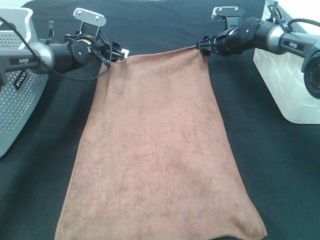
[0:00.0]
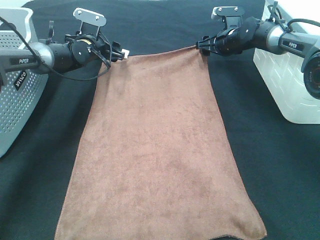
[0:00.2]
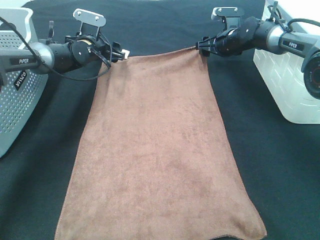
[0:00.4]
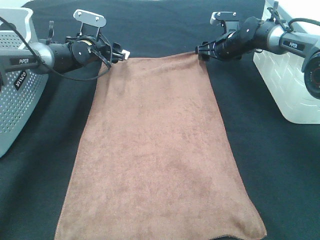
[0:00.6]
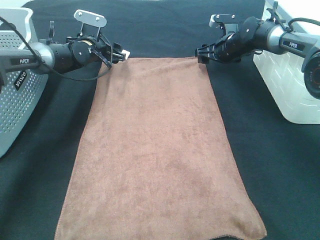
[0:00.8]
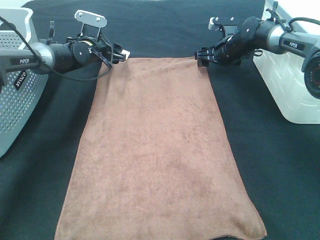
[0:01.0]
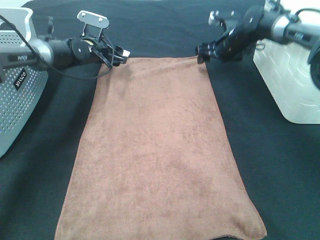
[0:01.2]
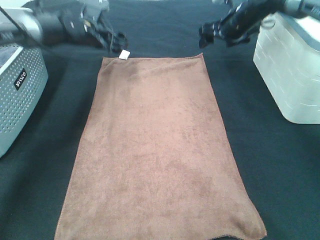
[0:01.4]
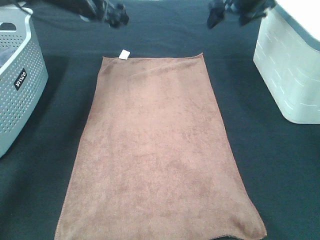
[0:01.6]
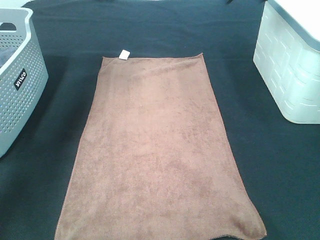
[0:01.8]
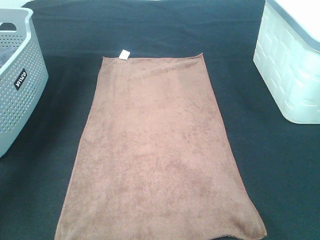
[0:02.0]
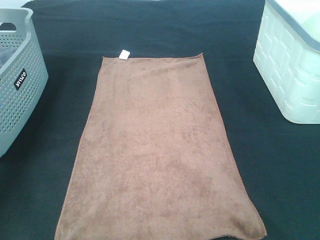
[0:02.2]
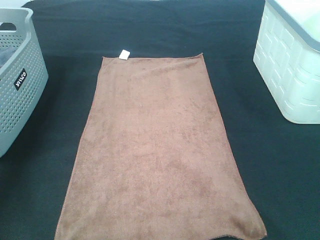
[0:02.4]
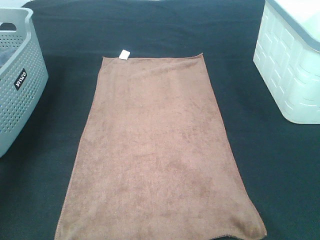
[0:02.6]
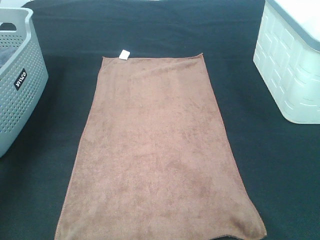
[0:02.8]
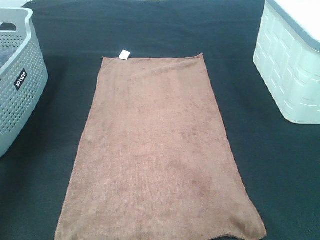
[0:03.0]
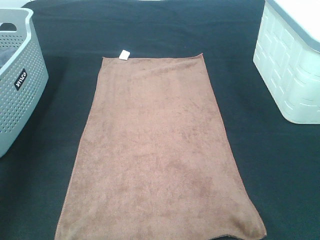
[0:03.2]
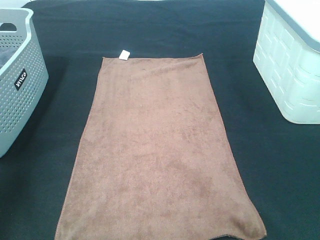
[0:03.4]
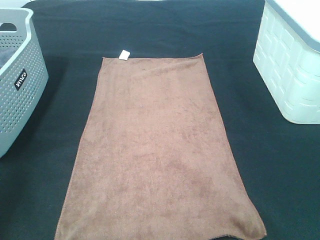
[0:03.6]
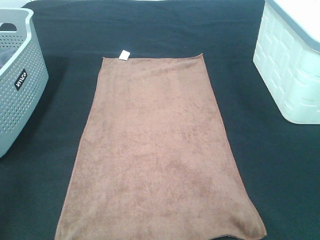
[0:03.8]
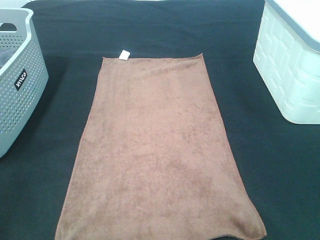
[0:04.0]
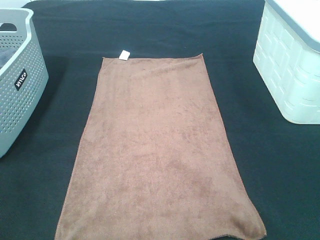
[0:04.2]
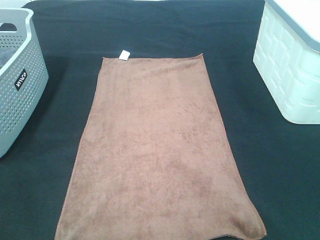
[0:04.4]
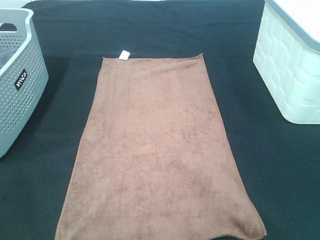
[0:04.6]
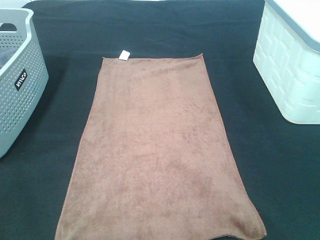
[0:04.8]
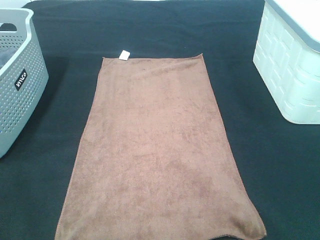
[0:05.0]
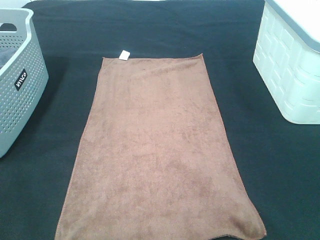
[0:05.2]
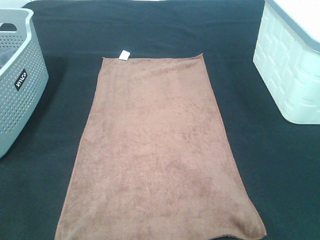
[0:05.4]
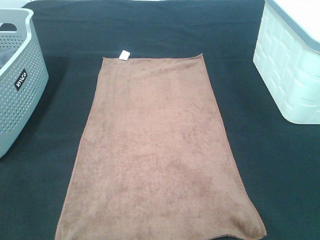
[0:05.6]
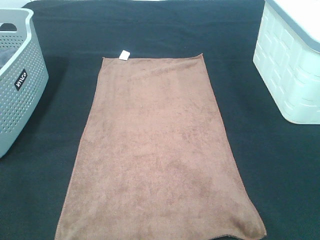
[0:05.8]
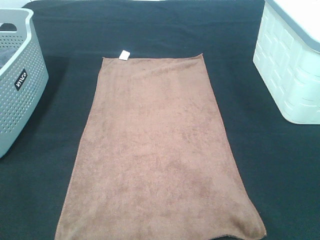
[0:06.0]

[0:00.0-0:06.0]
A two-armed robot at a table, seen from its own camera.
Task of the whole recording: Remove the towel and place it.
0:00.0 to 0:01.6: The two grippers go approximately 15 cm upward.
0:01.6 to 0:03.0: The left gripper goes about 30 cm backward, to the left and upward, while the right gripper shifts about 35 cm backward and upward.
0:03.0 to 0:04.4: The left gripper is displaced backward by approximately 30 cm.

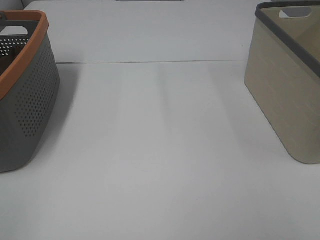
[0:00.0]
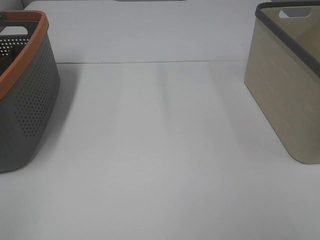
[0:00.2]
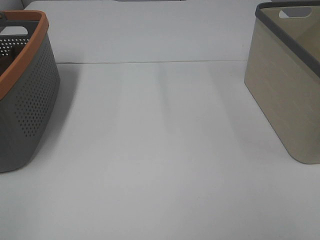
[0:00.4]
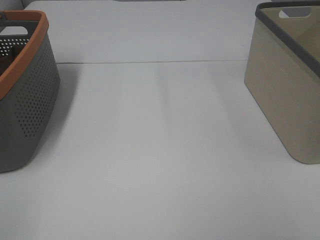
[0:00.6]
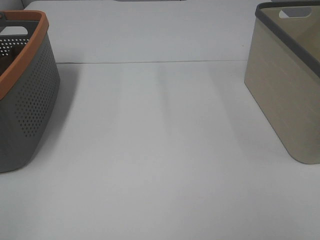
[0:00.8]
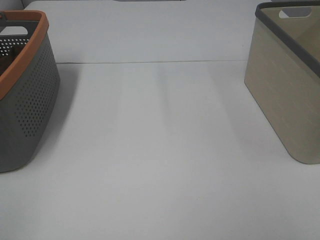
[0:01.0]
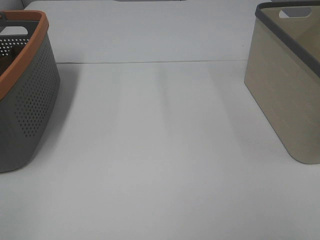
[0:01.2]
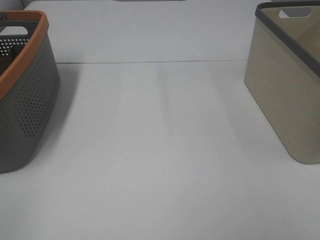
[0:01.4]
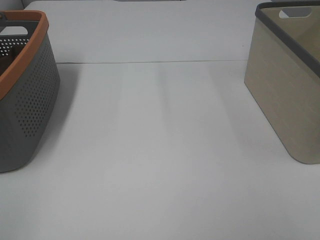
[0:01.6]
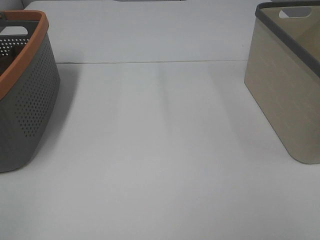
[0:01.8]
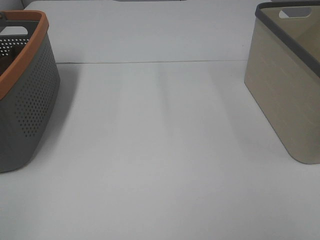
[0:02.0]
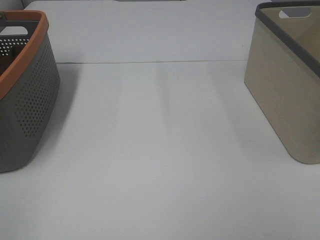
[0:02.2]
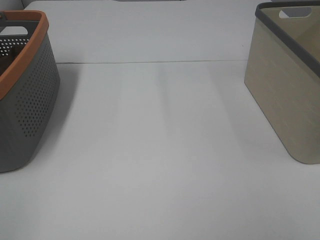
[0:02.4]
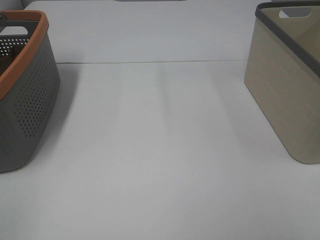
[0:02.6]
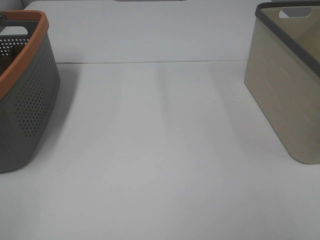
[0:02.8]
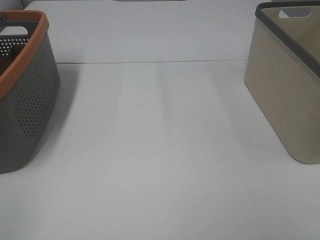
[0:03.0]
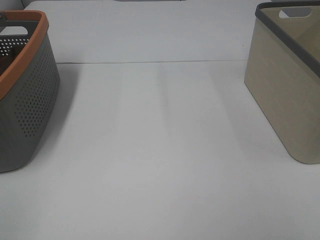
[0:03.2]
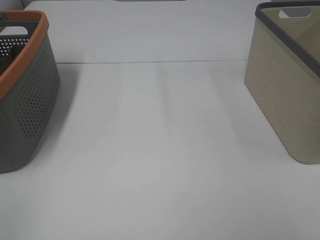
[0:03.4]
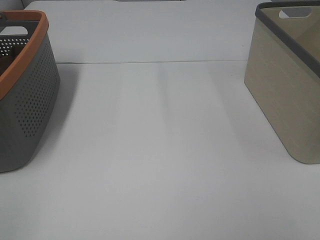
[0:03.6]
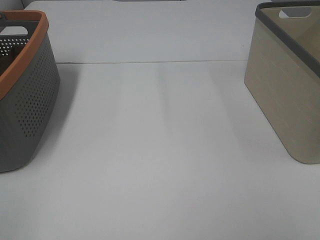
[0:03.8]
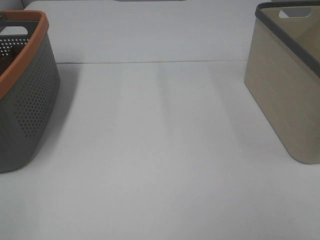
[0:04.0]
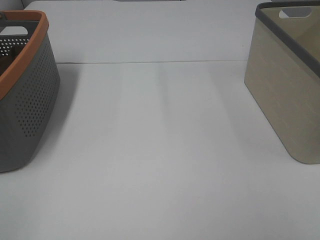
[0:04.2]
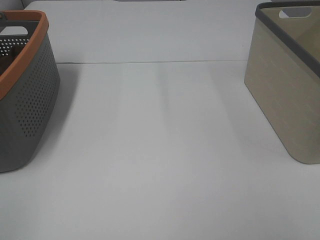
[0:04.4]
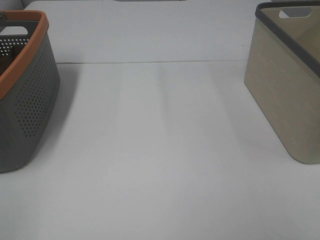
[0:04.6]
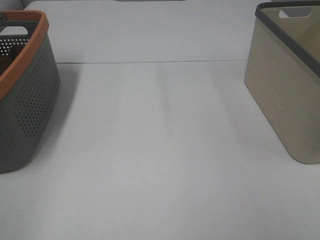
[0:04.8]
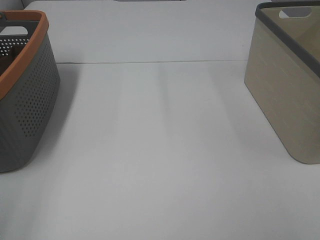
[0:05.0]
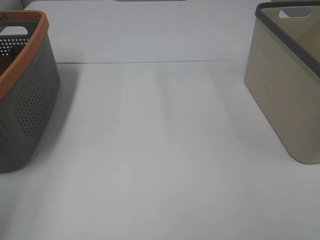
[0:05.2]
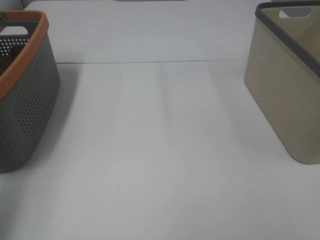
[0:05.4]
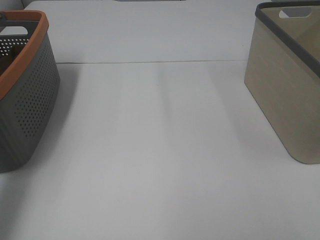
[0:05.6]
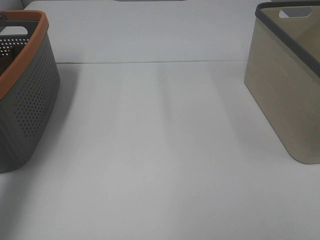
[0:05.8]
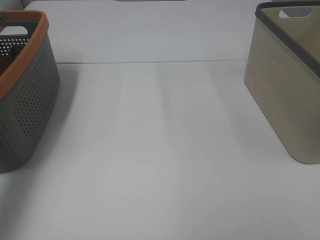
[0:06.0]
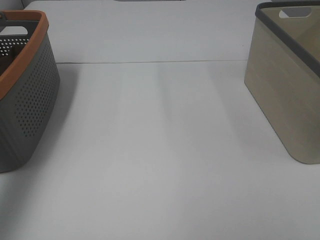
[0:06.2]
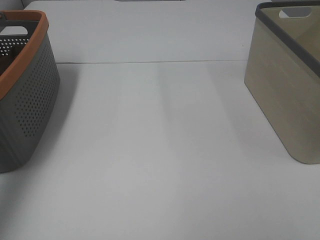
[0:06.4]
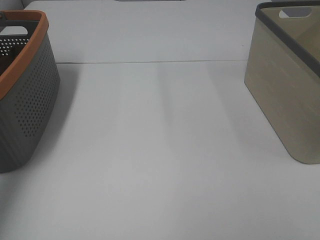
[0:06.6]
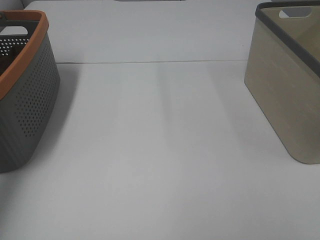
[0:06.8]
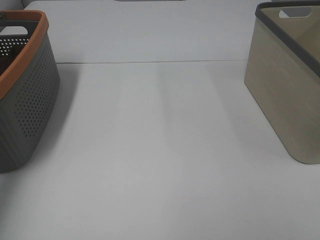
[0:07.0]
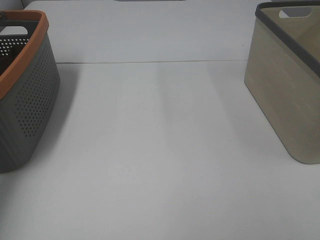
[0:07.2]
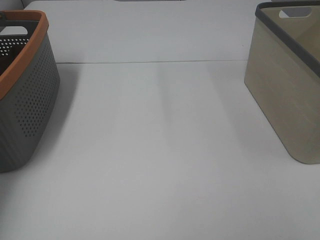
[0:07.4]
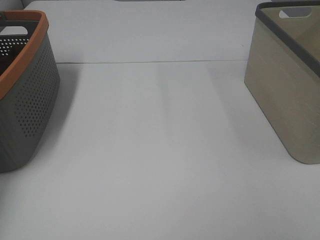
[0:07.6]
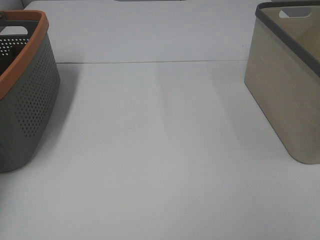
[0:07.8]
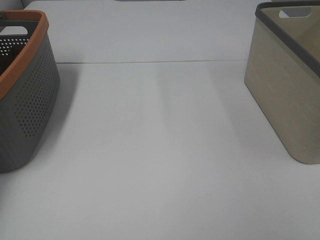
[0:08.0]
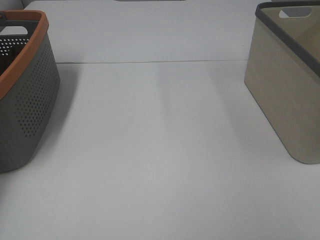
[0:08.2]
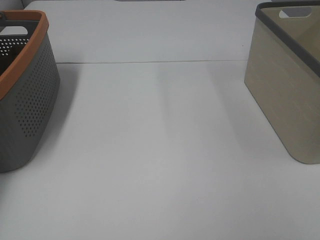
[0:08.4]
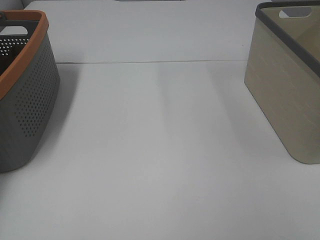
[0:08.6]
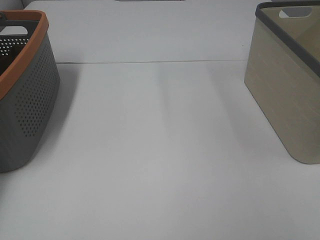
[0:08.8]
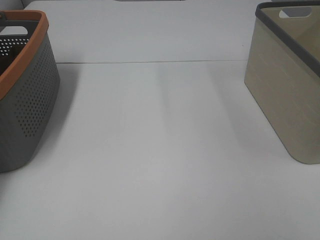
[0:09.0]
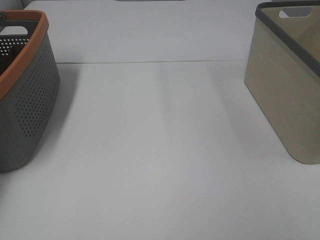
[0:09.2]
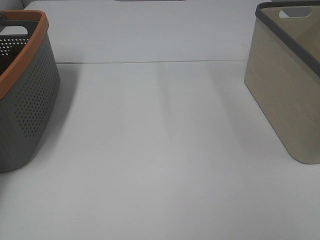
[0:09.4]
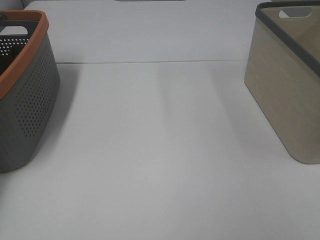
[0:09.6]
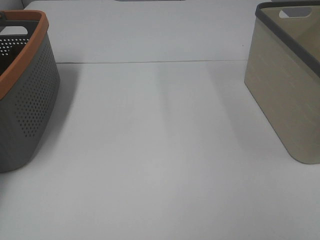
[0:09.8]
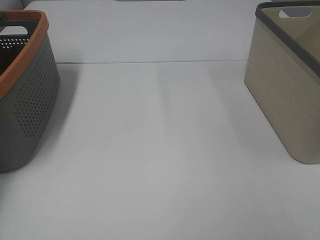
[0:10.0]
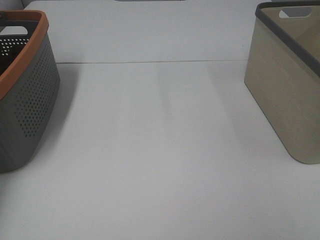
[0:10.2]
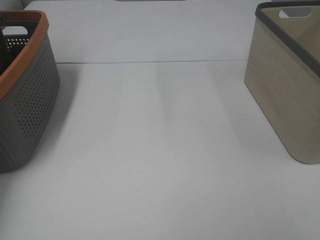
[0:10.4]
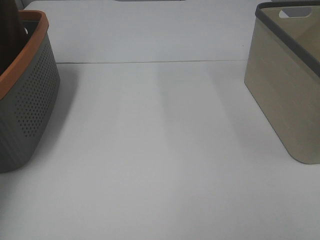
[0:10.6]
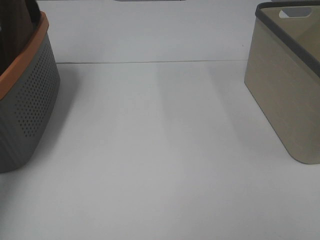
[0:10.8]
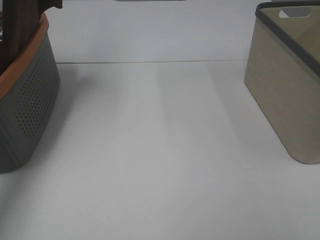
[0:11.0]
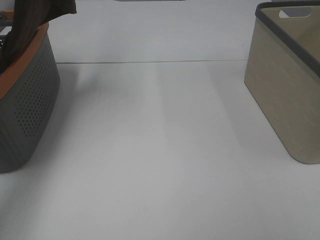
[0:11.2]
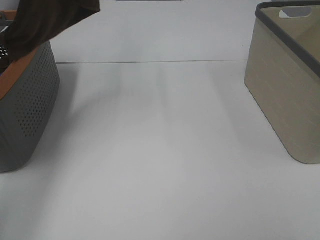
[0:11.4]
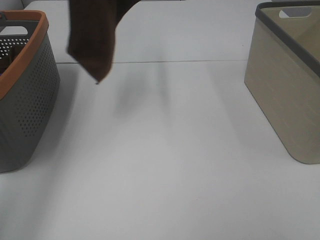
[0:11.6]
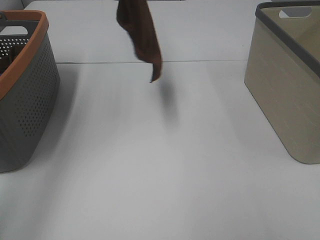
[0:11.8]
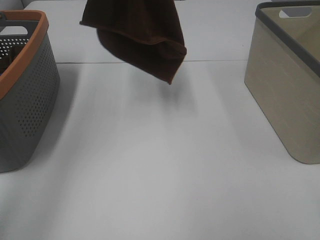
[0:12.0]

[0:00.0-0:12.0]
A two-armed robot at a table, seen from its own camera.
Task of the whole recording: Remove the towel and place it.
0:00.0 to 0:04.4: Both grippers stay about where they are.
0:04.4 to 0:06.0: The left gripper travels forward and upward by roughly 30 cm.
0:06.0 to 0:07.6: The left gripper shifts about 20 cm forward, to the left and downward.
0:10.4 to 0:12.0: The right gripper changes place by roughly 5 cm; the left gripper travels to the right and upward by some 25 cm.

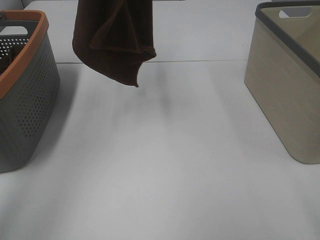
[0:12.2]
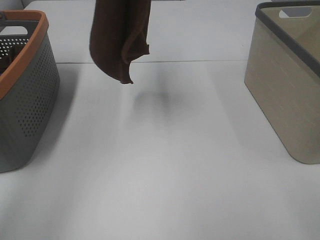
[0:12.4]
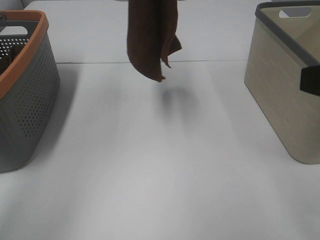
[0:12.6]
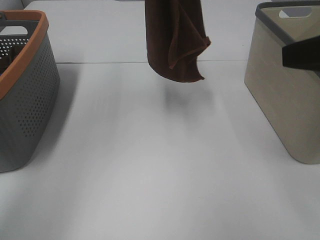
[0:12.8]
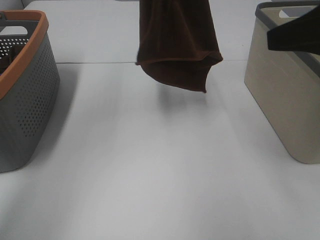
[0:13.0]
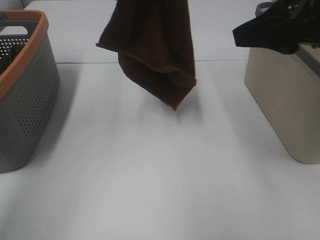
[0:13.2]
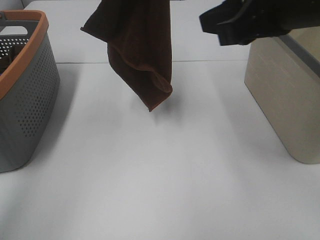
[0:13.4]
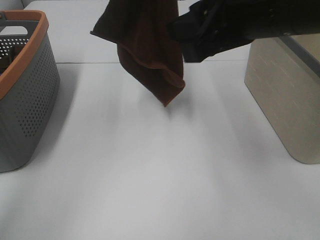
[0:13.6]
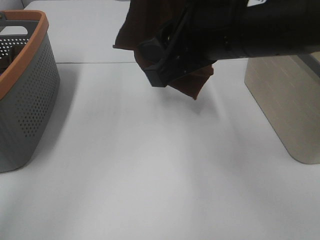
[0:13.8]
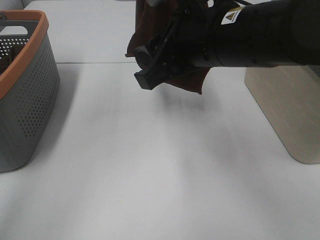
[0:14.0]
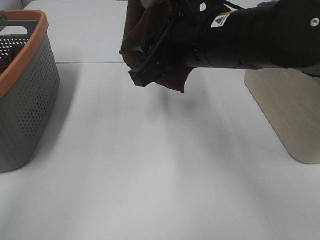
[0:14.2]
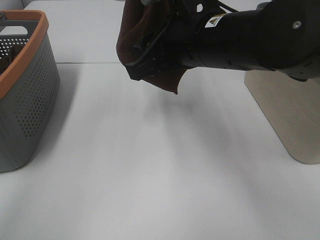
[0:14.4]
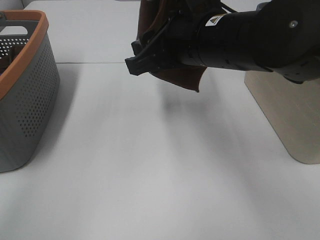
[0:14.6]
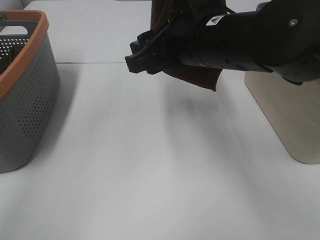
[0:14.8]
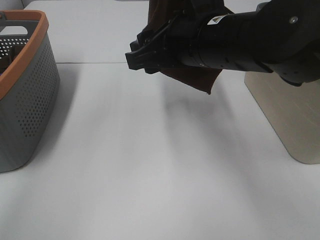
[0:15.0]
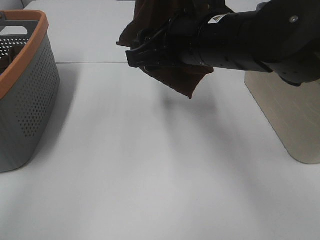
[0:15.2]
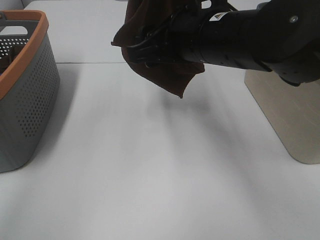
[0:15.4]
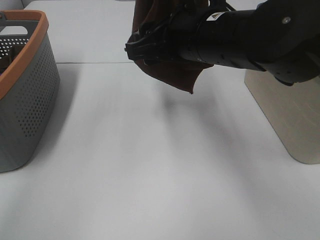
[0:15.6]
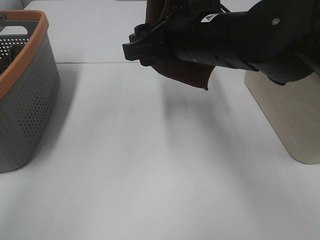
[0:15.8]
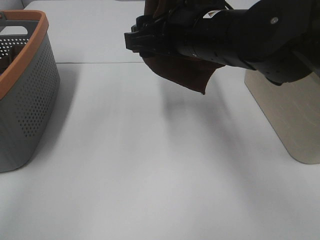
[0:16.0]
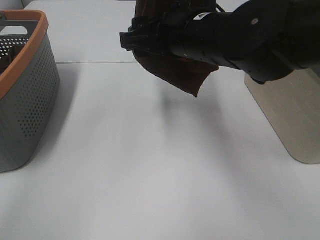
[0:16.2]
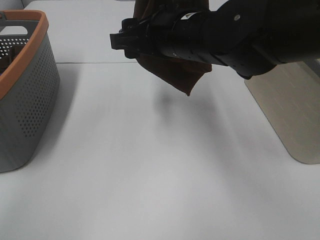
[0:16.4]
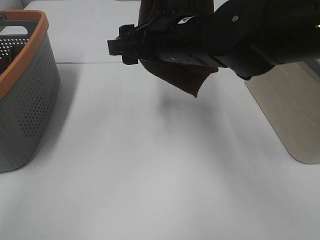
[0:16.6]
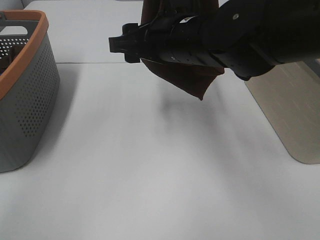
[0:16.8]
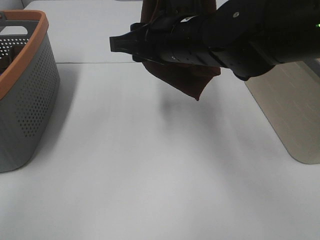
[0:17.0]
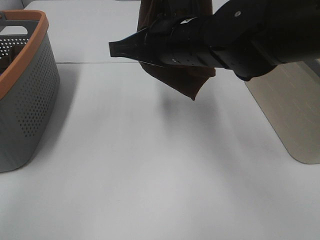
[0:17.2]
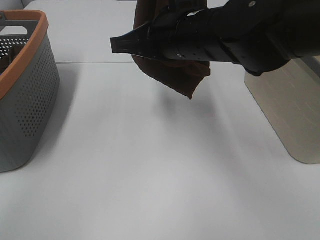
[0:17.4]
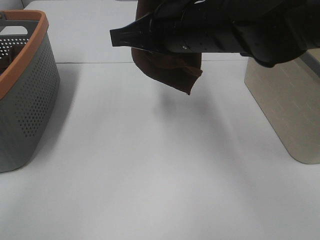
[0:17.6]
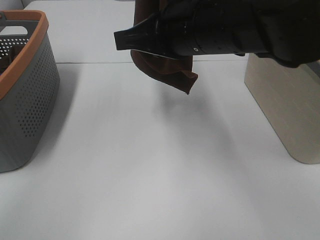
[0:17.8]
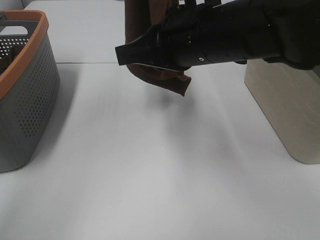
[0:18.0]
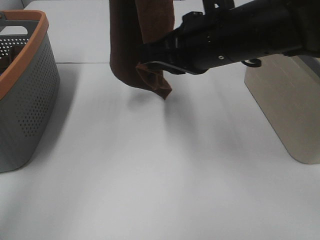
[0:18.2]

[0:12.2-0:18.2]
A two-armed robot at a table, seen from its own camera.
Task of the whole recording: Remove the towel and place it.
Step, 0:12.2 to 0:15.8: Right hand: grab a corner of the brown towel and straighten it.
0:12.2 to 0:13.8: The right gripper shifts approximately 25 cm forward and to the left.
0:13.8 to 0:15.2: The right gripper ends up some 5 cm from where it was.
0:15.2 to 0:16.6: There are only small adjustments of the grippers.
0:16.6 to 0:18.2: The left gripper travels to the left by roughly 5 cm. The right gripper heads to the right, covering about 5 cm, and closes.
